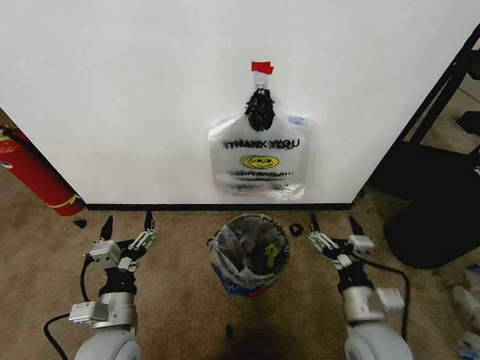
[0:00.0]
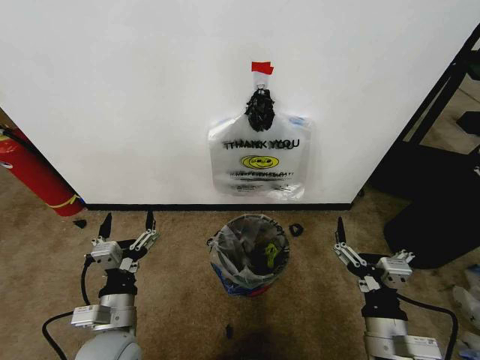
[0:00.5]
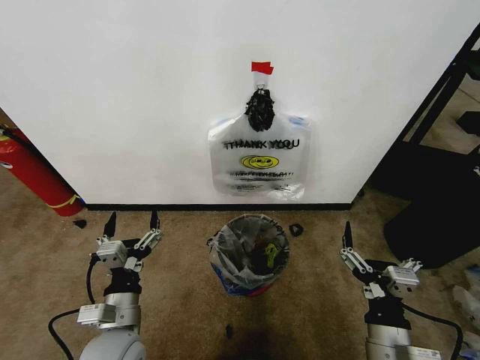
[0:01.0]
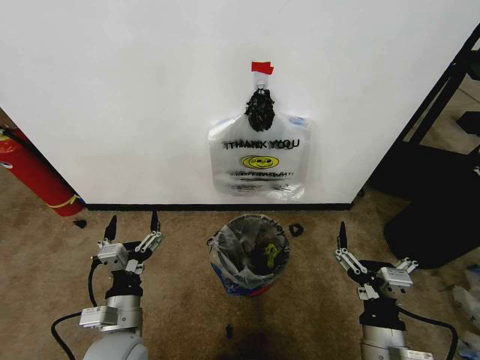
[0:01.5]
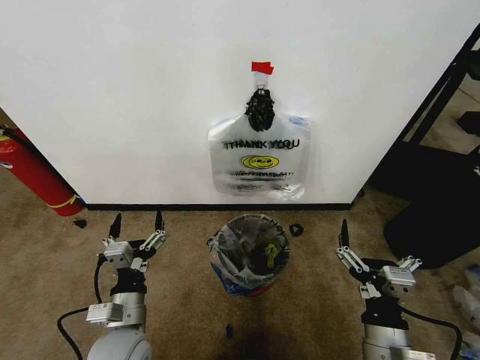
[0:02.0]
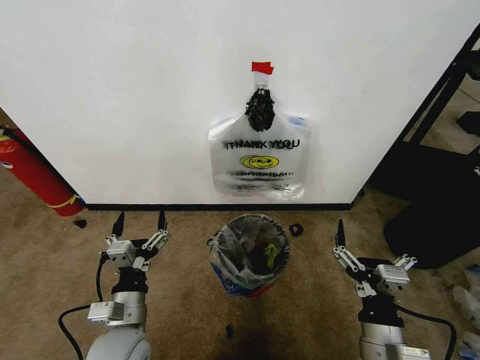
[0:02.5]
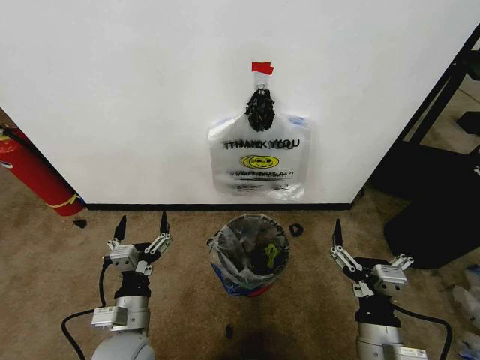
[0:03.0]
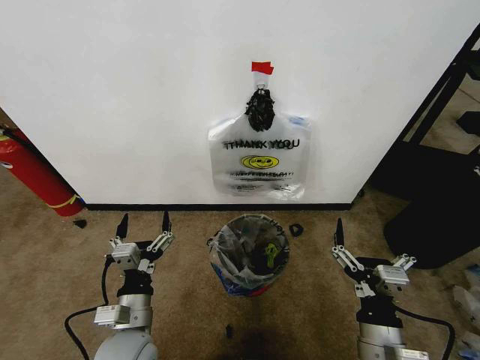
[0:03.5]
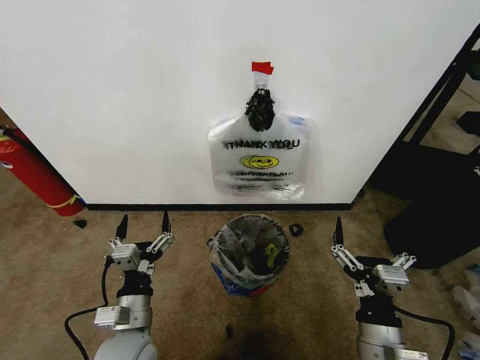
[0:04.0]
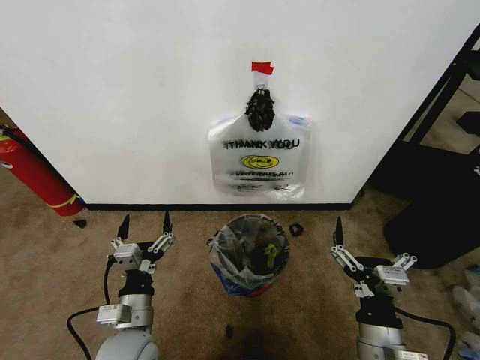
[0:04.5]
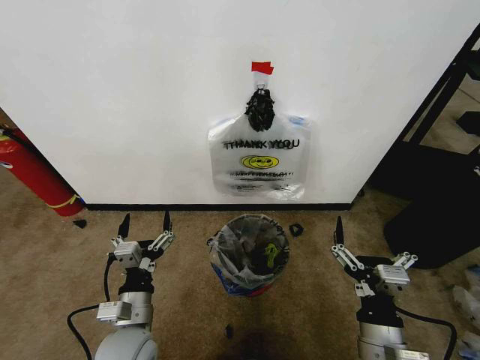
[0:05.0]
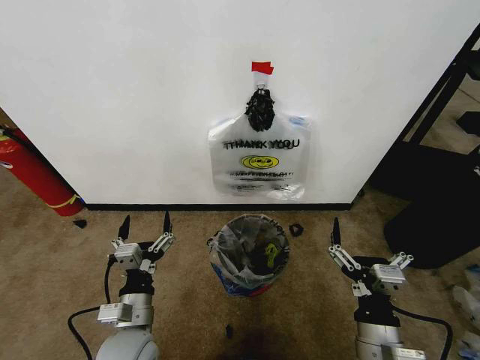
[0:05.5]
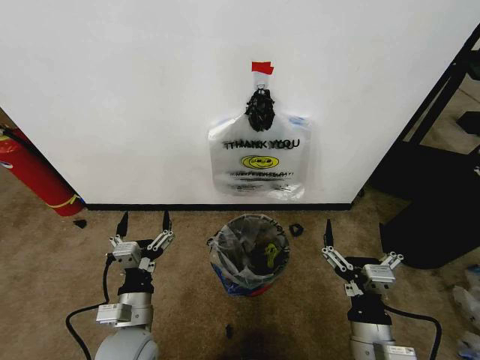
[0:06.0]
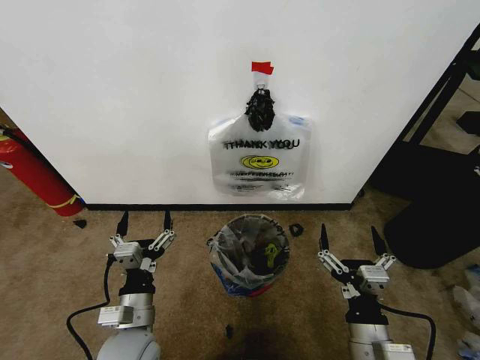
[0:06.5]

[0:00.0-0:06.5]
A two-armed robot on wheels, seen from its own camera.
Task of the whole recording: Pick up the garbage bag from the wall and place it over the trash bin.
0:00.0 to 0:02.0: The right gripper moves backward, some 10 cm.
0:02.0 to 0:06.5: The grippers make only small movements.
